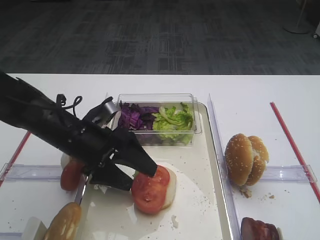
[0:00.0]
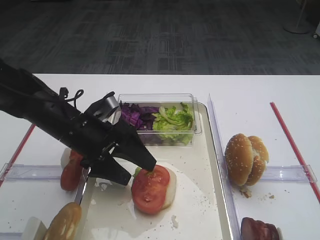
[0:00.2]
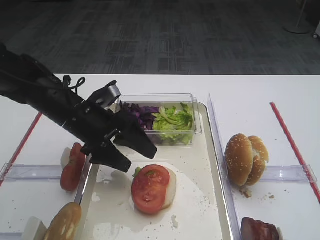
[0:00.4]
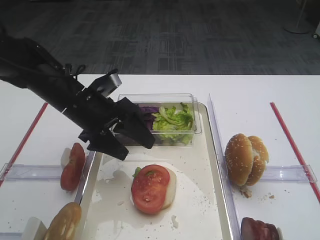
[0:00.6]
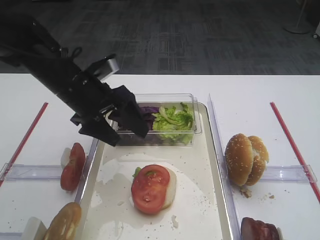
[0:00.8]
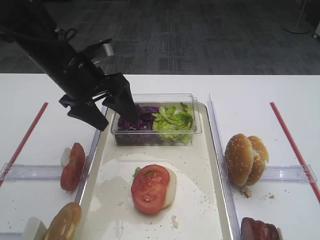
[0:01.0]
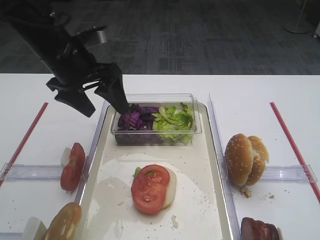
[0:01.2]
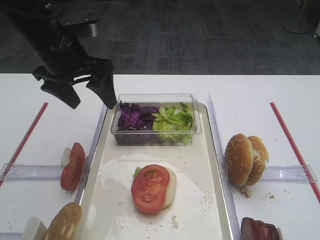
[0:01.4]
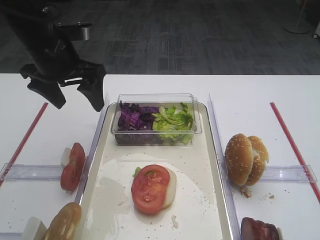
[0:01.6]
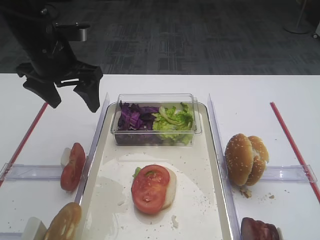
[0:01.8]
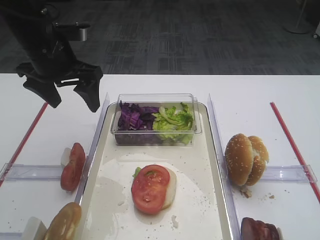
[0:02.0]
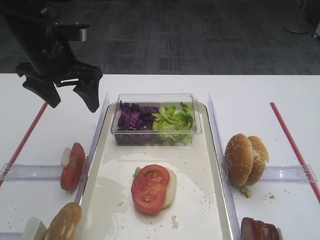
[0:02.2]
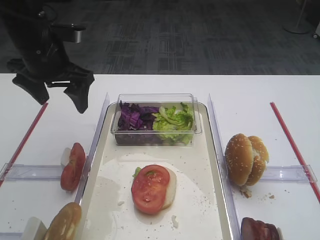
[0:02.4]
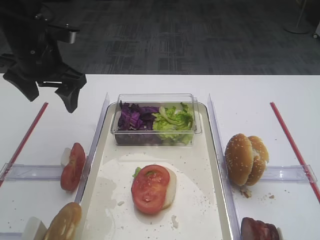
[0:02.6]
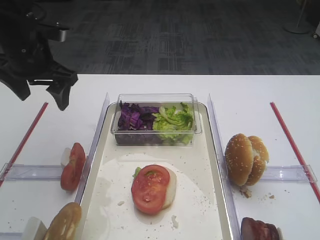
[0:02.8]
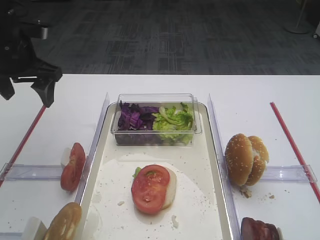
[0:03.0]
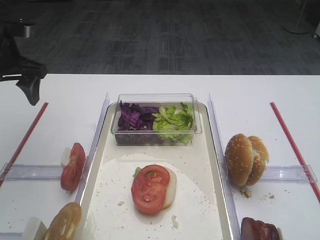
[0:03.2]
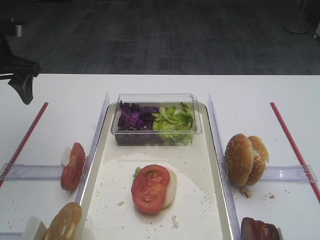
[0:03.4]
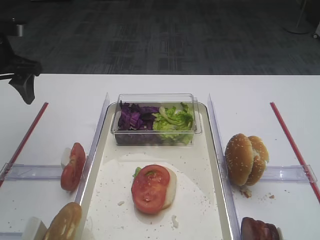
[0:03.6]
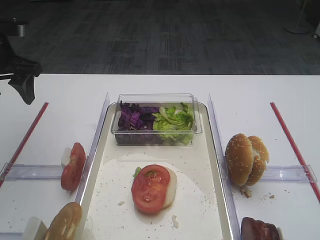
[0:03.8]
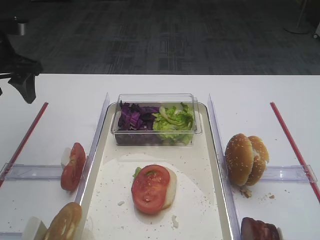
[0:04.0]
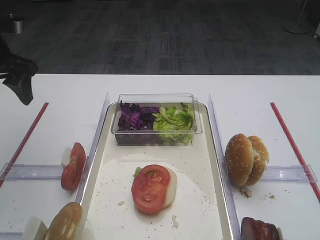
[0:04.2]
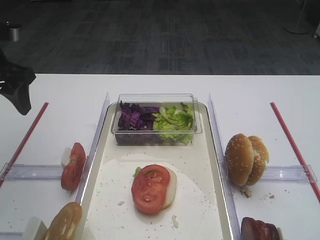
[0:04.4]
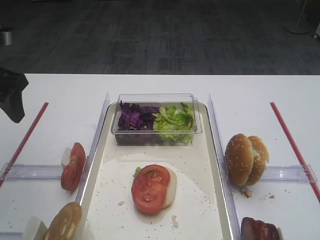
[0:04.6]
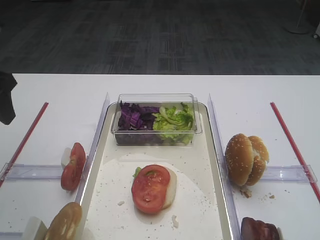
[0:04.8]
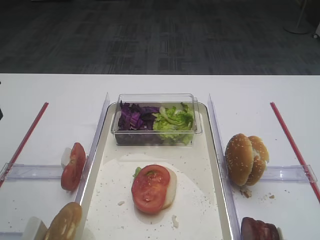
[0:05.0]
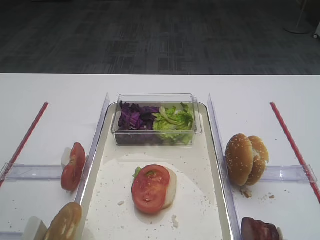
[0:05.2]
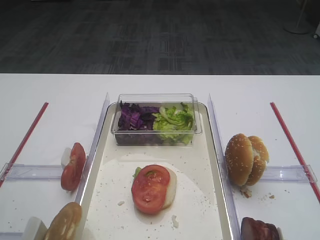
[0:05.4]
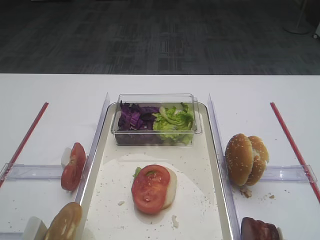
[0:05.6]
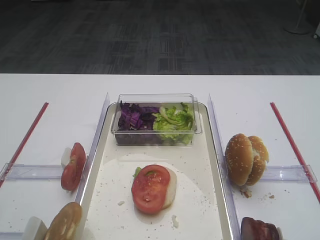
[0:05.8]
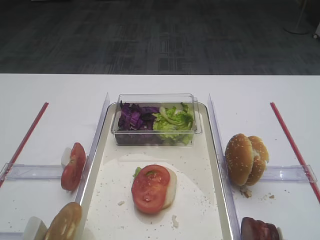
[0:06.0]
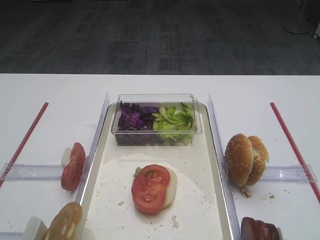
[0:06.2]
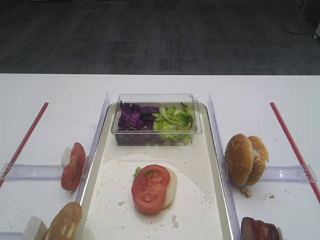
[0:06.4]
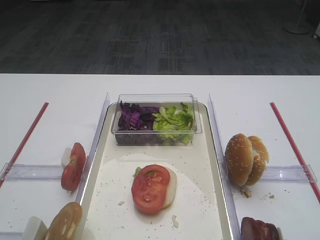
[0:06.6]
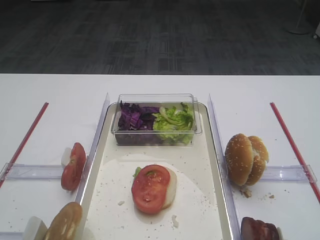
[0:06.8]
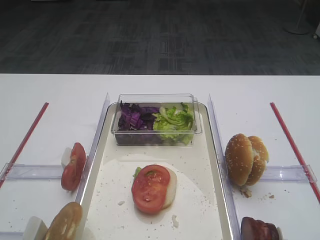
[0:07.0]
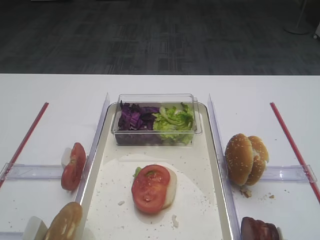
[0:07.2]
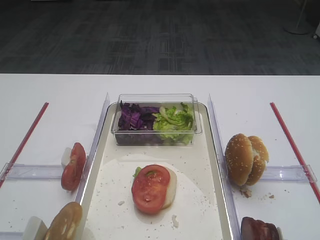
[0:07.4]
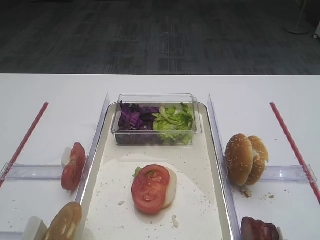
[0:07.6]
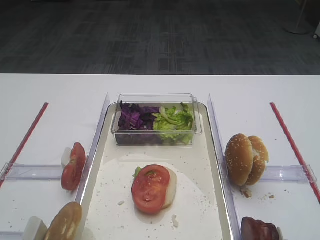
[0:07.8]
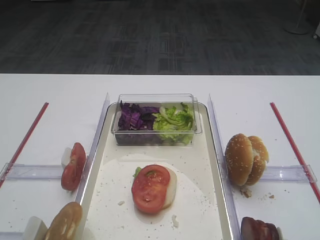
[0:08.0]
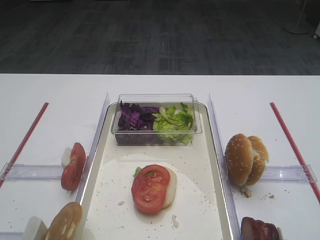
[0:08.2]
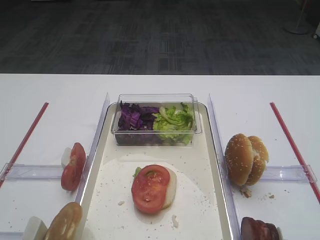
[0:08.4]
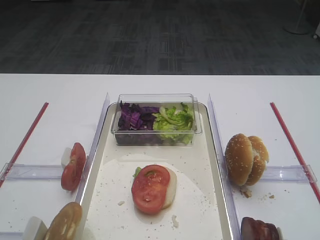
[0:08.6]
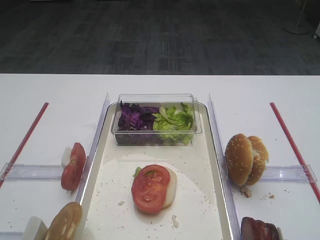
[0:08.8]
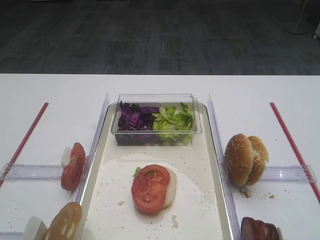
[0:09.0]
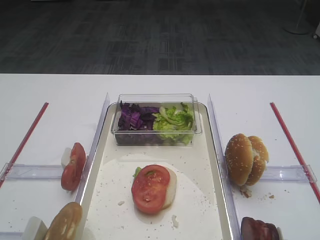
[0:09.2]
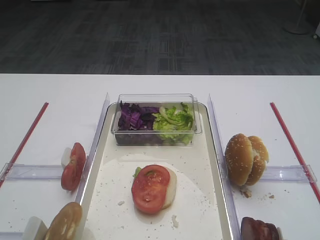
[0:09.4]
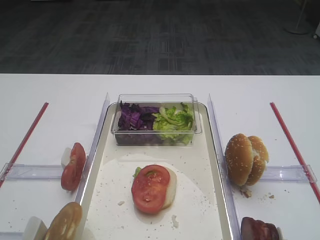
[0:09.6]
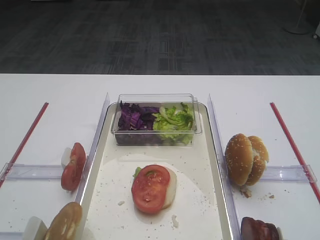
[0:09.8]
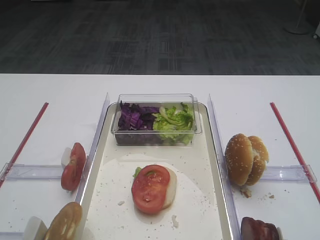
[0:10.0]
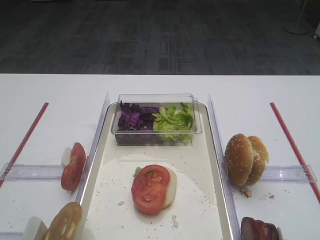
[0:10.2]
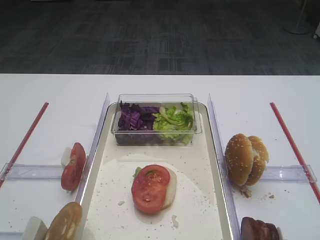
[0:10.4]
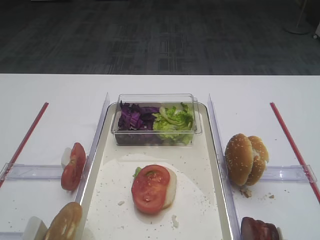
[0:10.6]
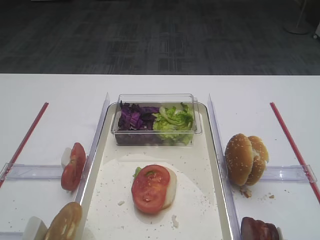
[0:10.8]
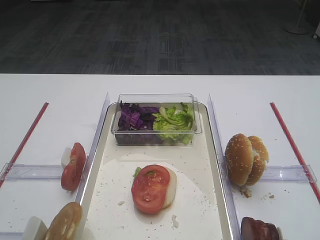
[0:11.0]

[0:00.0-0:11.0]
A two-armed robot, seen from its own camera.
0:00.0 to 0:01.6: The left gripper moves upward and forward, approximately 15 cm.
0:01.6 to 0:03.2: The left gripper goes about 10 cm to the left.
0:03.2 to 0:04.8: The left gripper travels backward by some 10 cm.
0:04.8 to 0:06.2: The left gripper is displaced backward by about 25 cm.
0:07.8 to 0:11.0: Both grippers stay about where they are.
